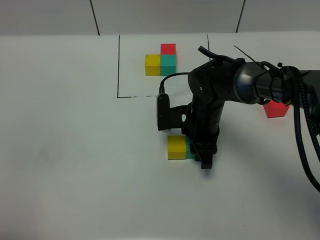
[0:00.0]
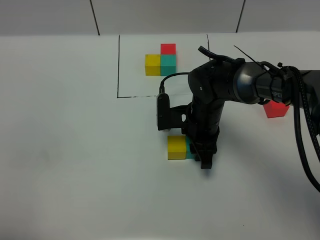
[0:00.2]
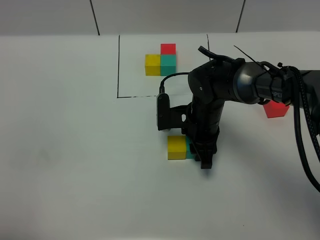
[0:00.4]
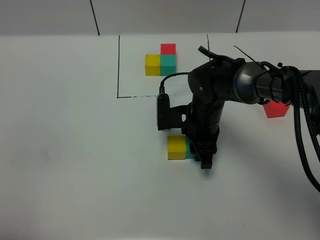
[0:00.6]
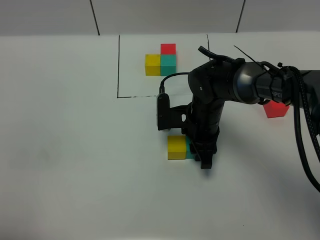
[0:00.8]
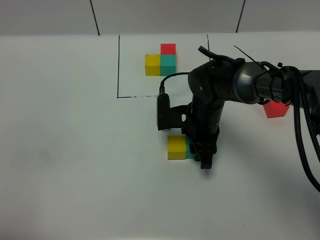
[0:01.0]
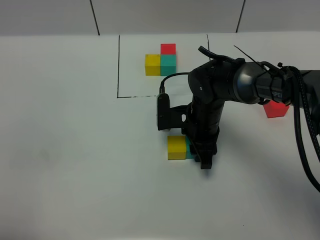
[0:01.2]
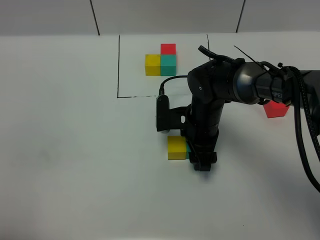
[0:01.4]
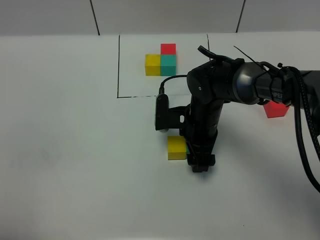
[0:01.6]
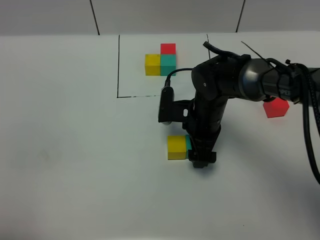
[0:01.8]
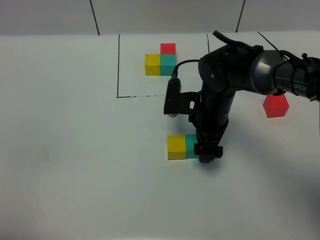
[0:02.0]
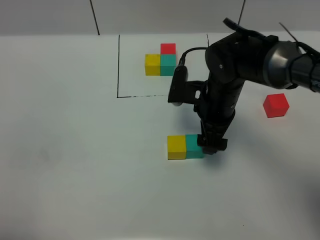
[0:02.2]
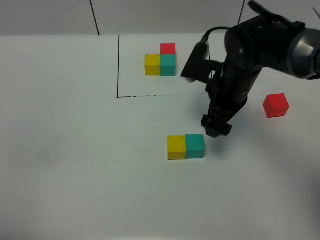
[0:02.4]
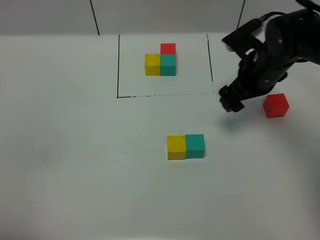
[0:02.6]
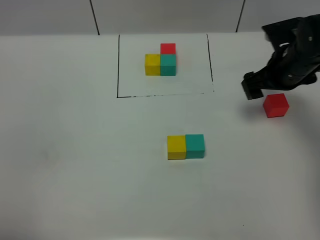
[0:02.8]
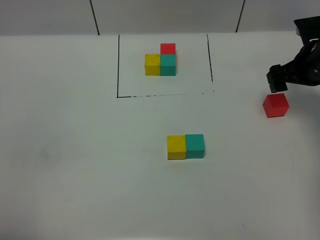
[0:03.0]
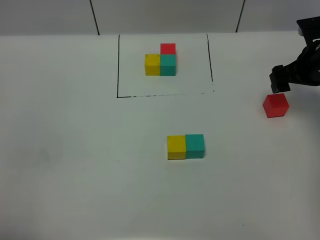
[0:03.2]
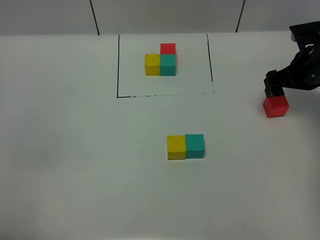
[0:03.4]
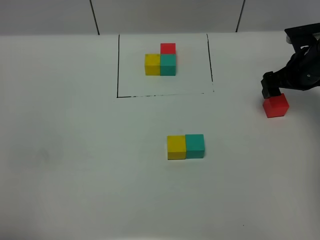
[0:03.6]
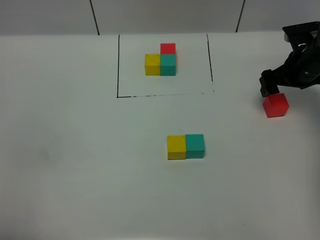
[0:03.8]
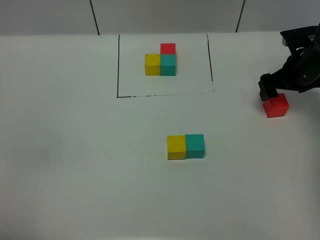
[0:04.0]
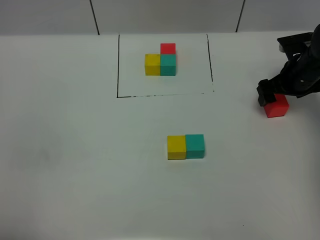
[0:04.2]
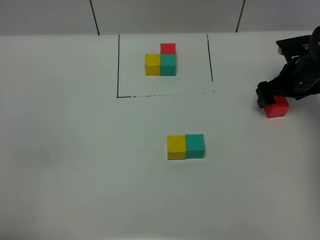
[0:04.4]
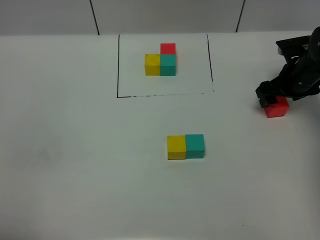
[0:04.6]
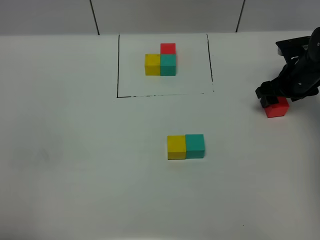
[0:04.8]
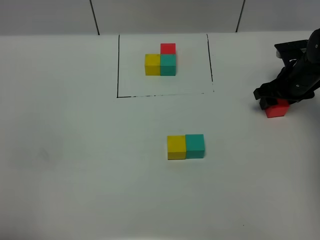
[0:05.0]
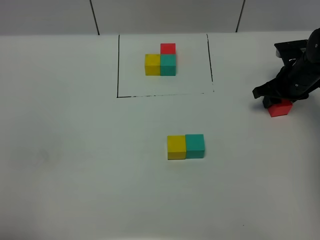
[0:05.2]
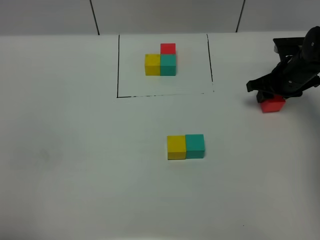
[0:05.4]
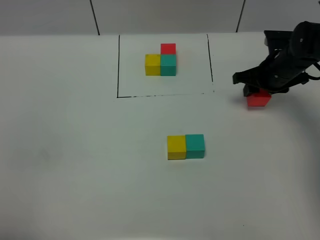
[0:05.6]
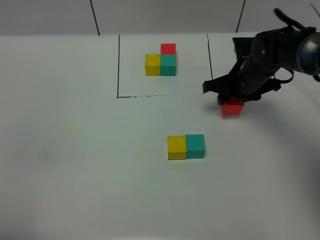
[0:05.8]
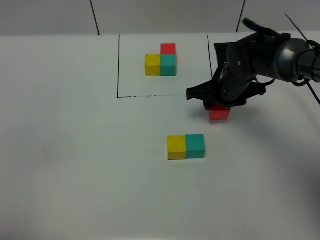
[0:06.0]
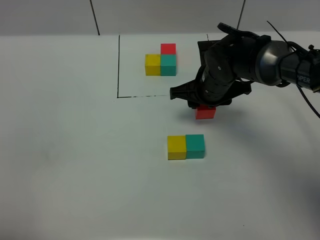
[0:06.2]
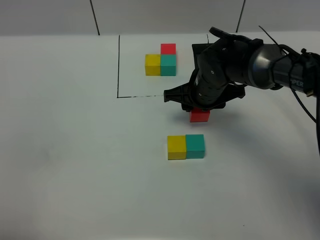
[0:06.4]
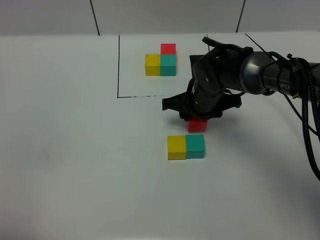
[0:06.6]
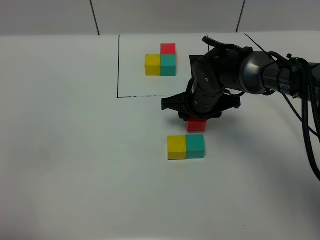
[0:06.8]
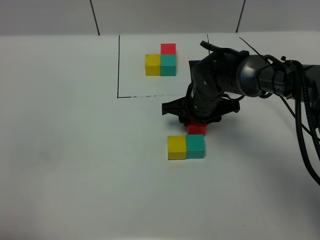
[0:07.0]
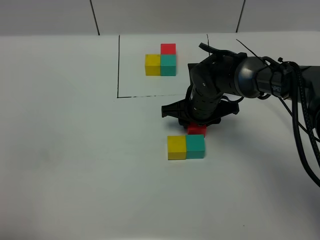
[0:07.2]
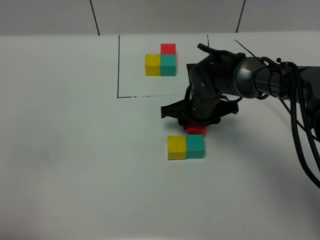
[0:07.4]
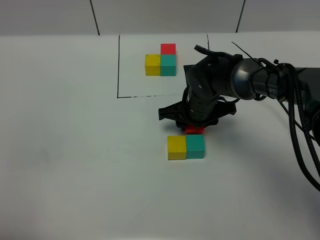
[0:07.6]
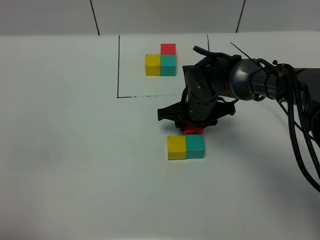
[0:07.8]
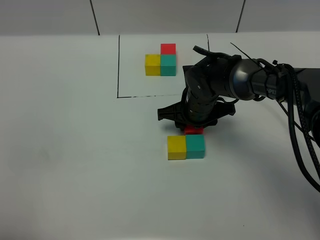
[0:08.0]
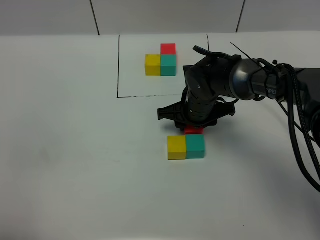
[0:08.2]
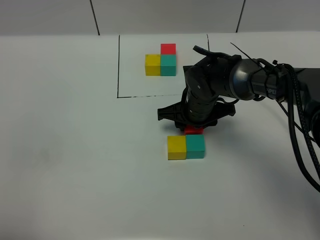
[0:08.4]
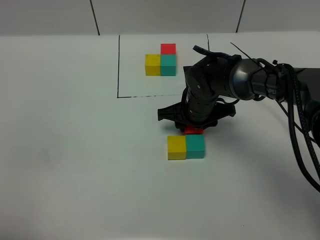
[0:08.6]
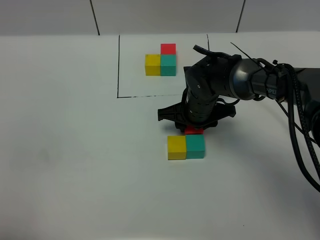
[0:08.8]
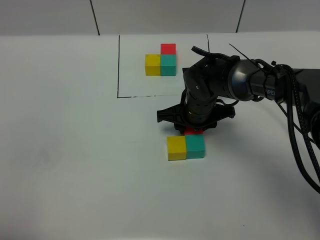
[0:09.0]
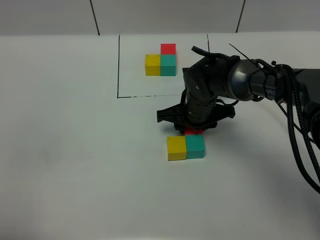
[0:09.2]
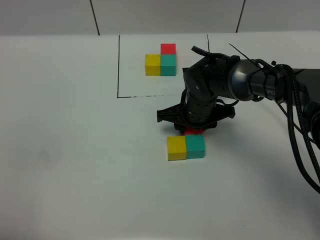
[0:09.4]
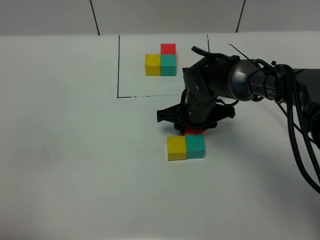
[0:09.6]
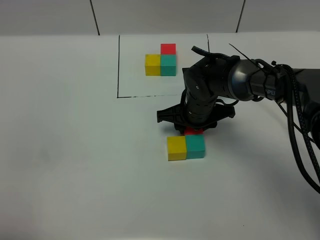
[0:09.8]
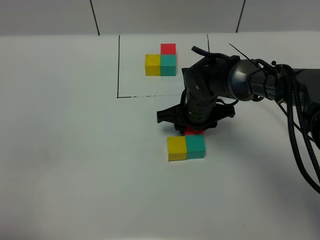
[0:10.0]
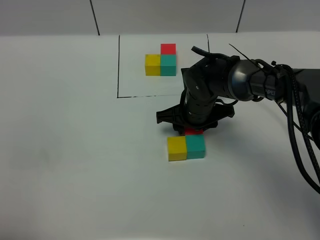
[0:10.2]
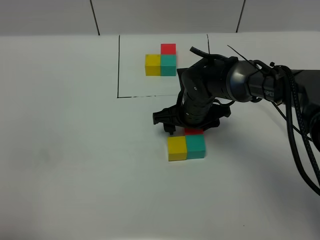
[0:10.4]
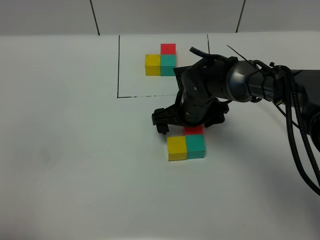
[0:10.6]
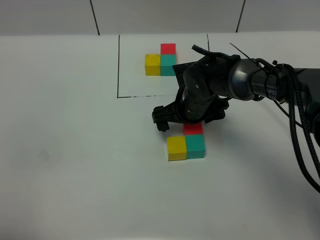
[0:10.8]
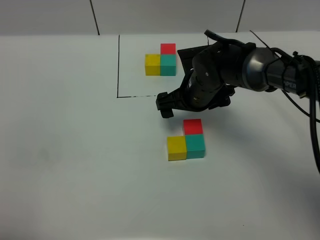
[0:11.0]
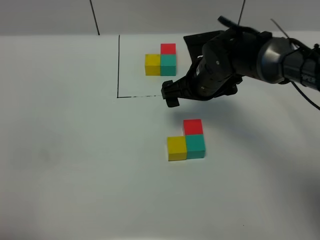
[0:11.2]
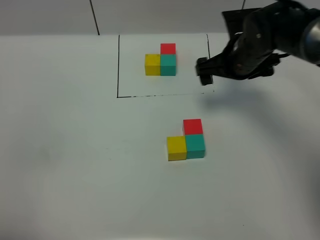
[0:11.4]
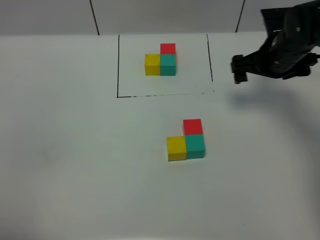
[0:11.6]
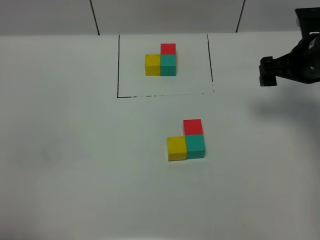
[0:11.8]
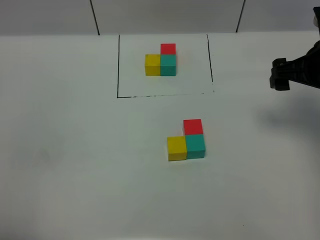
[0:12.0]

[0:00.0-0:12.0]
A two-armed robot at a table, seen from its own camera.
Task of the whole recording: According to the building block template in front, assemble the scattered blocks together.
Step, 0:01.8 to 0:10.2: Put the red build block on the front of the green build block.
0:00.0 to 0:01.6: The right gripper opens up.
0:01.6 to 0:03.0: The right gripper heads to the right, covering about 20 cm.
0:03.0 to 0:04.4: The right gripper goes roughly 5 cm downward.
0:04.4 to 0:06.0: The right gripper travels to the left by about 15 cm, and closes.
0:06.0 to 0:07.6: The right gripper moves to the left, roughly 5 cm.
0:07.6 to 0:09.0: Neither gripper changes place.
0:09.0 to 0:10.4: The right gripper opens its fingers.
0:10.4 to 0:12.0: The right gripper is displaced to the right and upward by approximately 25 cm, and opens its fingers.

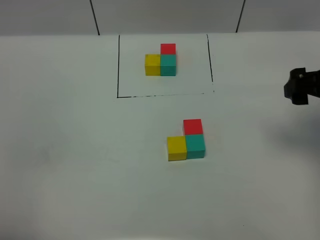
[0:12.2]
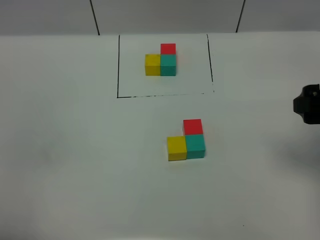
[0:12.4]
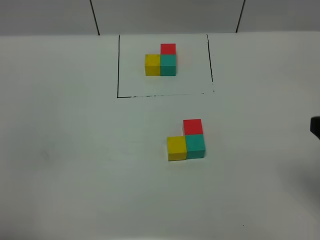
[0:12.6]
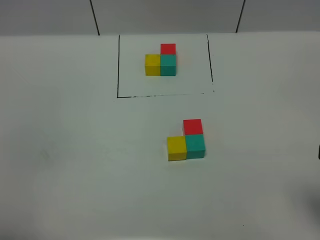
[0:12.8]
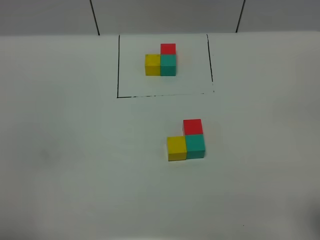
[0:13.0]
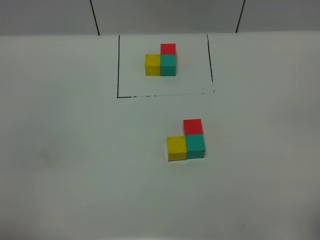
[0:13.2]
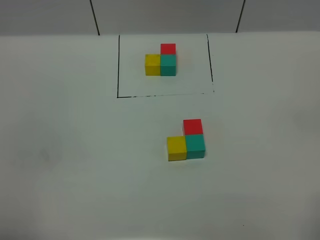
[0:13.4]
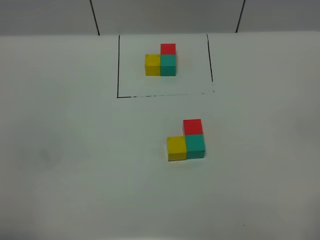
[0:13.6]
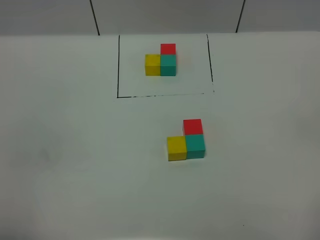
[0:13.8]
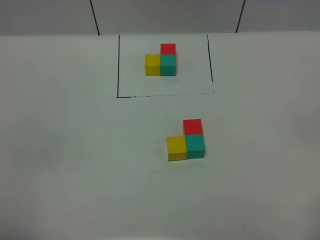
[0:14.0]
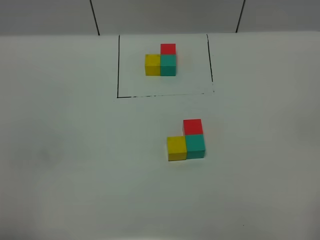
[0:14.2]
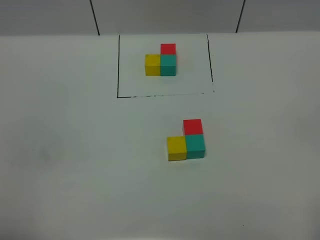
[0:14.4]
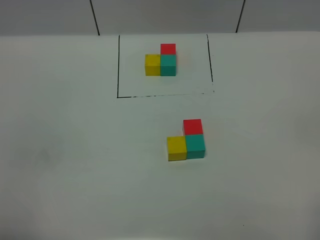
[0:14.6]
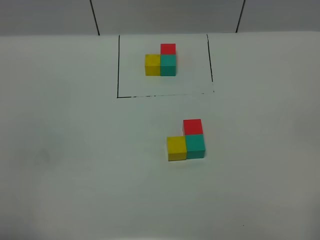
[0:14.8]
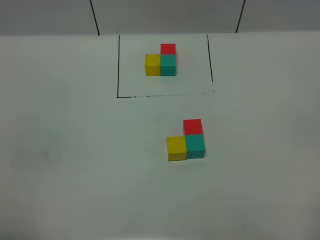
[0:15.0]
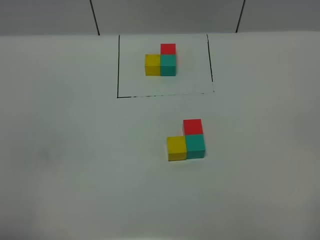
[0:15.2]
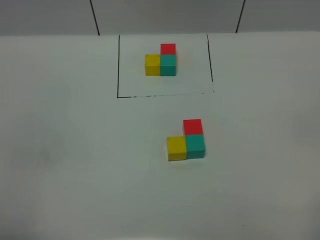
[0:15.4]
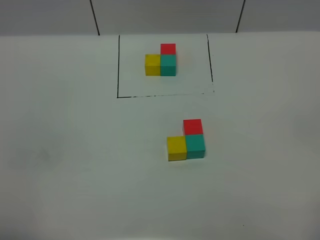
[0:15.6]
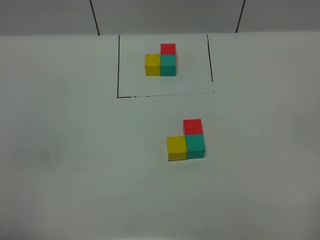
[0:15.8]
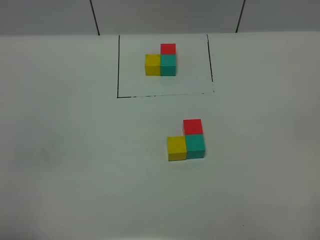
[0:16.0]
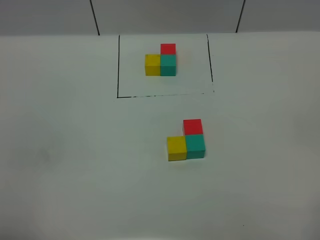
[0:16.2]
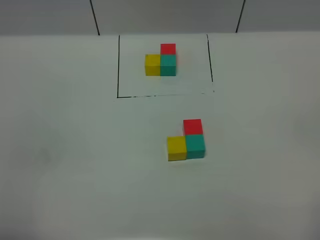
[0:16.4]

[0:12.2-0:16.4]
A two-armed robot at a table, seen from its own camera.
Task of the whole recording: According to the building block template in front, assemble the scattered blocks together.
0:12.2 to 0:13.6: The right gripper travels backward by approximately 25 cm.
0:13.6 to 0:16.4: Both grippers stay about where they are.
